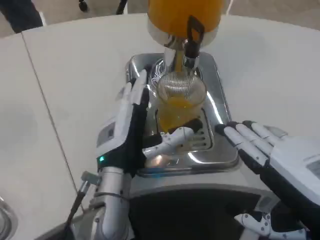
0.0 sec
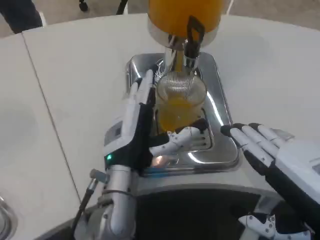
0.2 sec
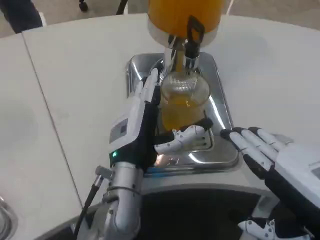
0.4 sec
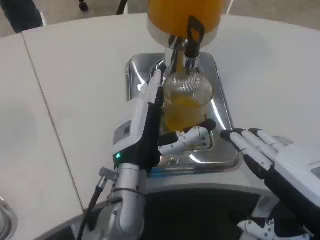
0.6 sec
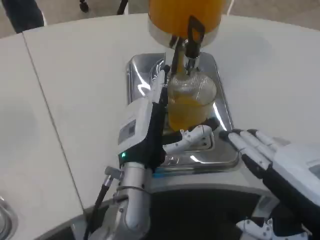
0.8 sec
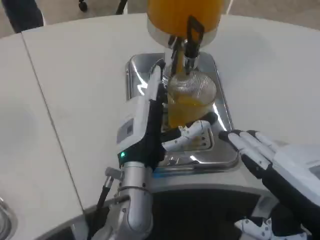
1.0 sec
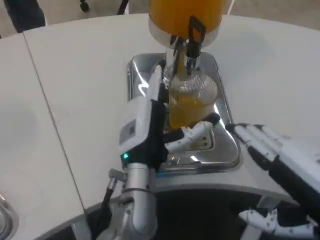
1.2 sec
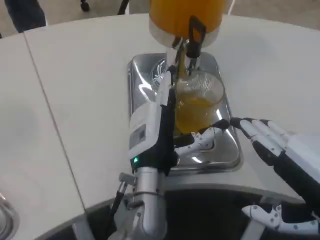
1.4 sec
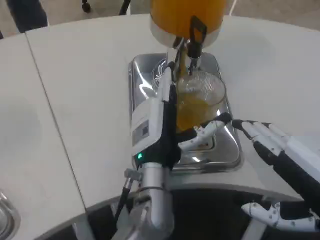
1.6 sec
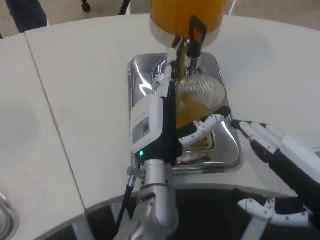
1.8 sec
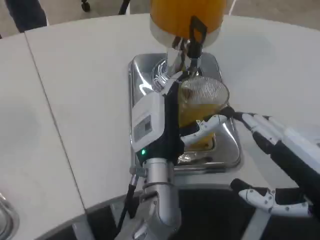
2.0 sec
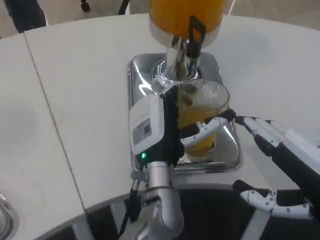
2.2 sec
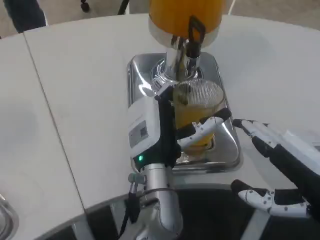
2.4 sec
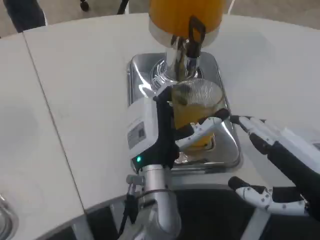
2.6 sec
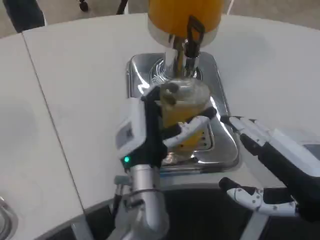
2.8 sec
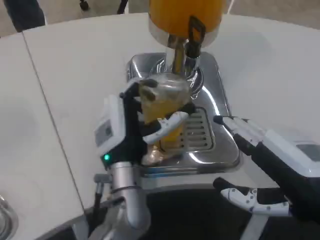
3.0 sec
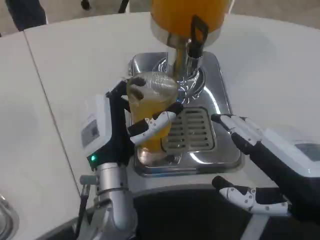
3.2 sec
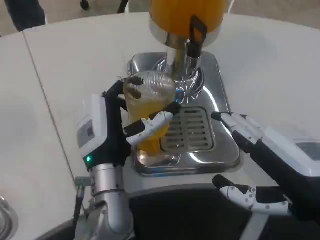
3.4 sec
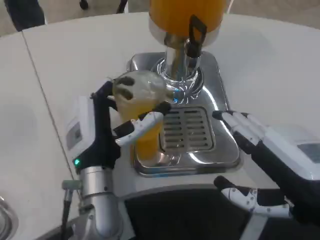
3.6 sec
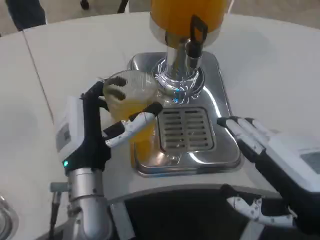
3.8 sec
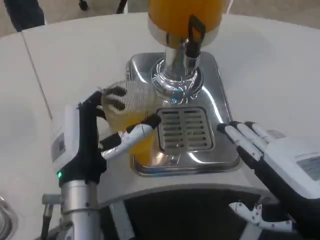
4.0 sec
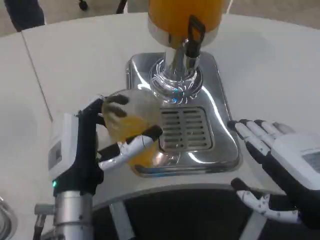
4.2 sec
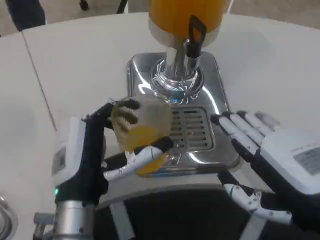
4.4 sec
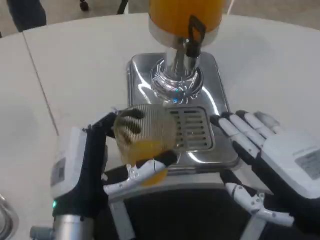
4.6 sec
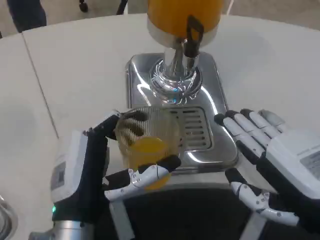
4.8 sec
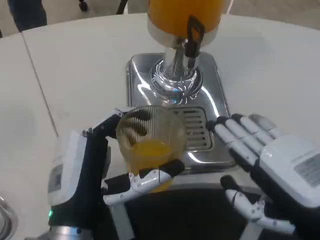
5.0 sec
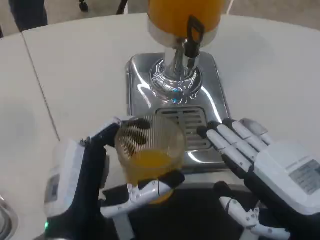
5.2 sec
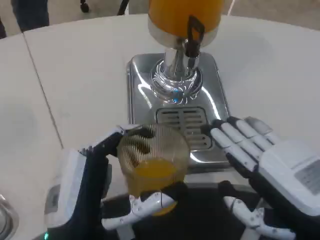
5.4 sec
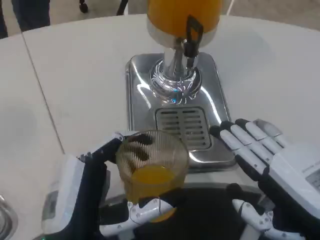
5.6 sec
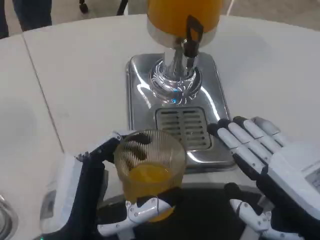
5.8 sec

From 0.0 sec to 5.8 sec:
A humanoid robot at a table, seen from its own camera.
Task of the whole recording: Grasp the cup under the faucet to collect the drink, then remove the cup.
From 0.0 sec to 1.4 sec: The left hand is displaced to the right by roughly 5 cm.
From 1.4 sec to 2.8 sec: The hands stay close to where they were, moving slightly.
From 2.8 sec to 4.4 sec: The left hand goes approximately 10 cm to the left and backward.
From 4.4 sec to 5.8 sec: The left hand heads backward, covering some 5 cm.

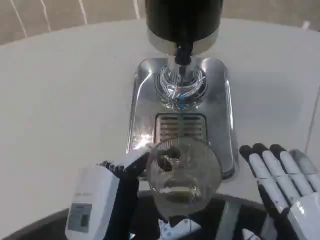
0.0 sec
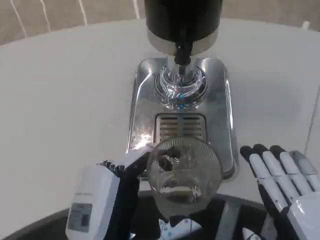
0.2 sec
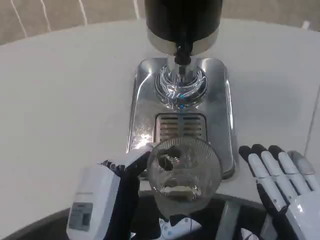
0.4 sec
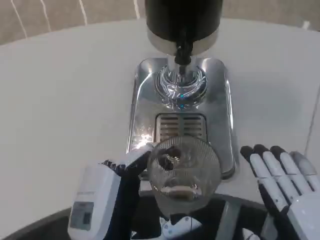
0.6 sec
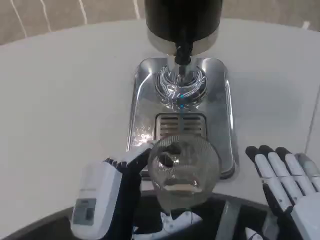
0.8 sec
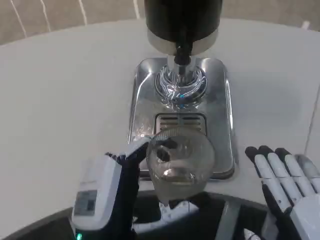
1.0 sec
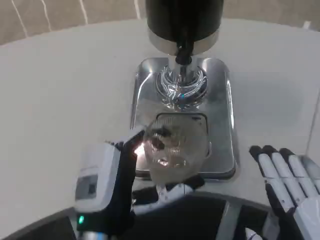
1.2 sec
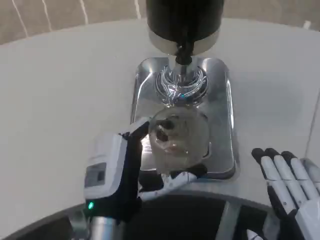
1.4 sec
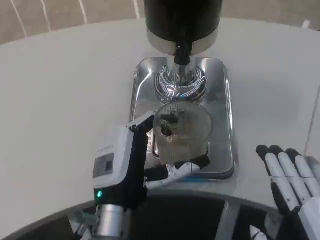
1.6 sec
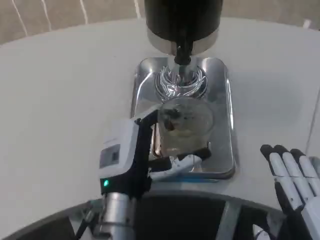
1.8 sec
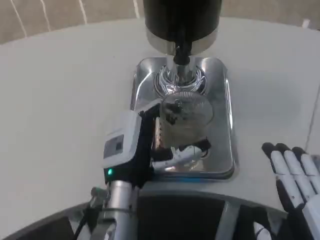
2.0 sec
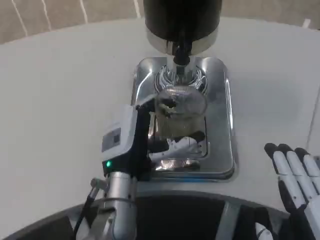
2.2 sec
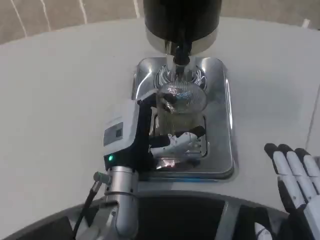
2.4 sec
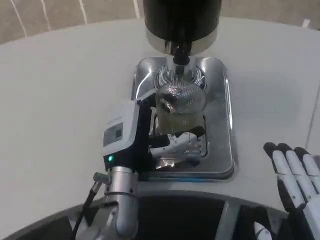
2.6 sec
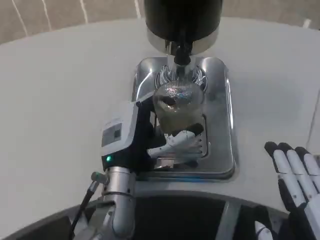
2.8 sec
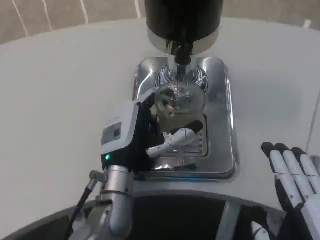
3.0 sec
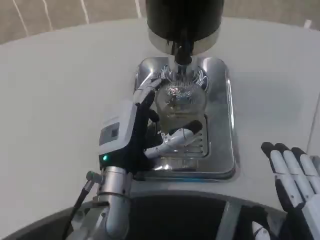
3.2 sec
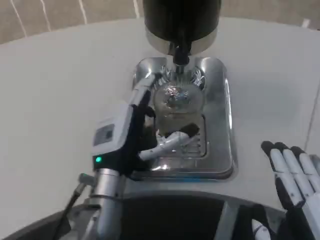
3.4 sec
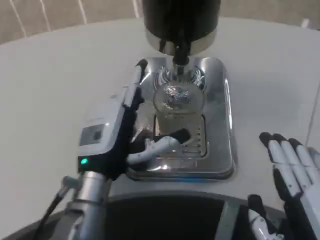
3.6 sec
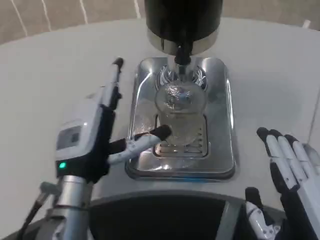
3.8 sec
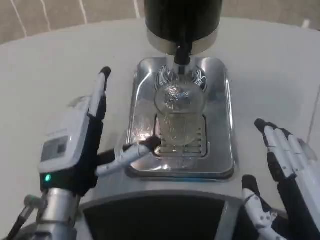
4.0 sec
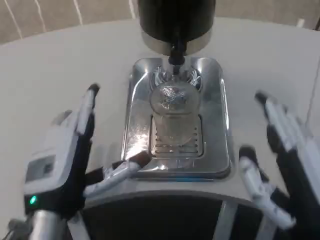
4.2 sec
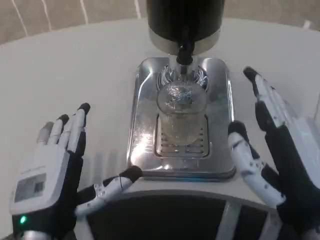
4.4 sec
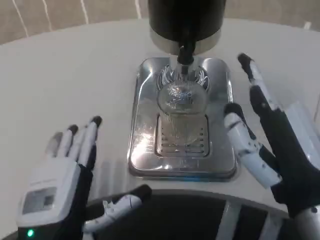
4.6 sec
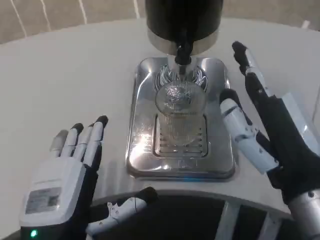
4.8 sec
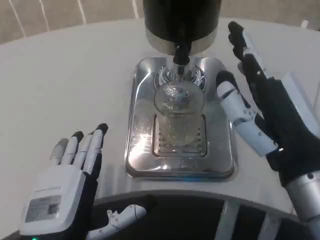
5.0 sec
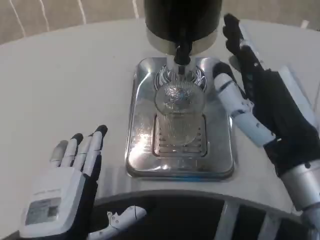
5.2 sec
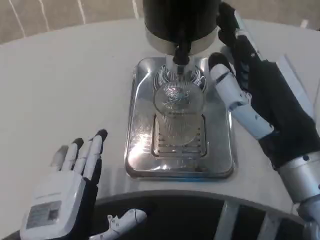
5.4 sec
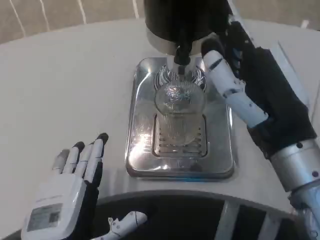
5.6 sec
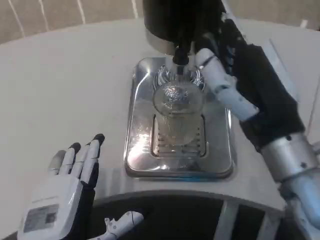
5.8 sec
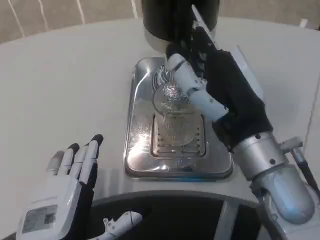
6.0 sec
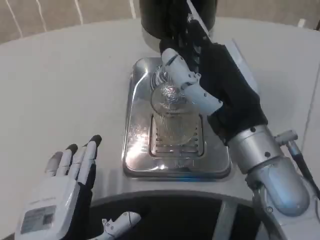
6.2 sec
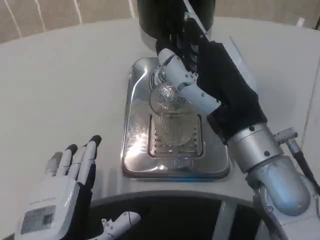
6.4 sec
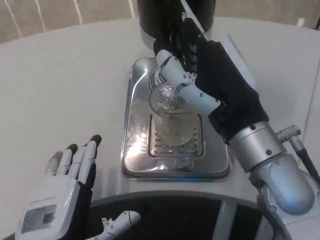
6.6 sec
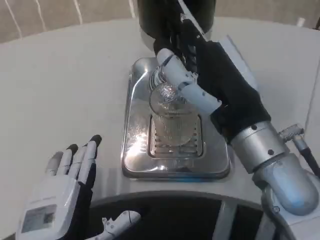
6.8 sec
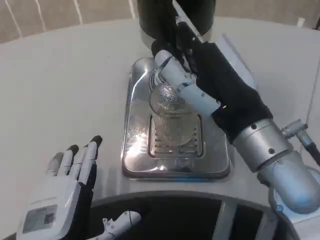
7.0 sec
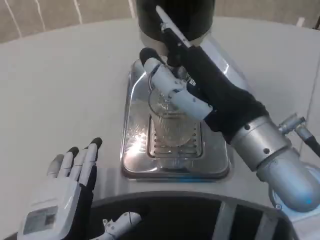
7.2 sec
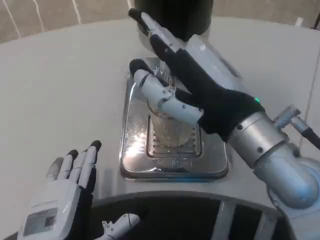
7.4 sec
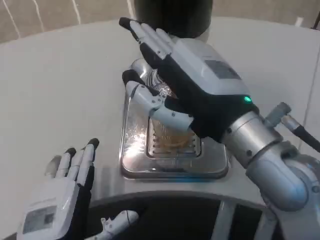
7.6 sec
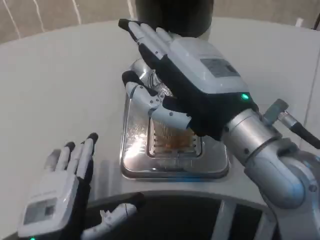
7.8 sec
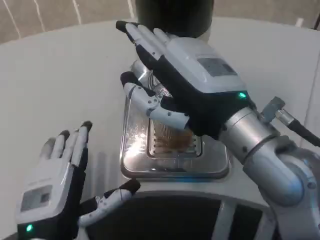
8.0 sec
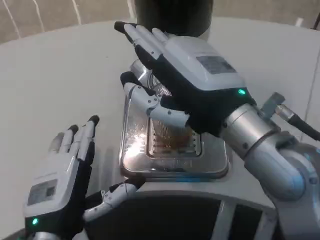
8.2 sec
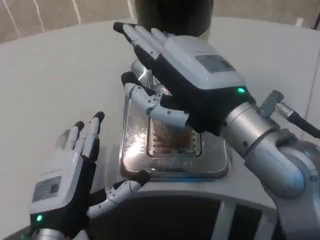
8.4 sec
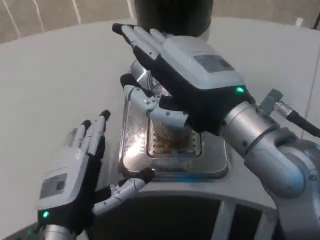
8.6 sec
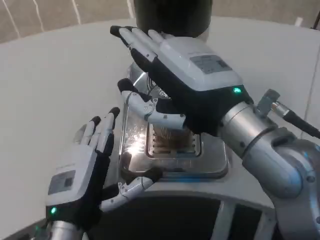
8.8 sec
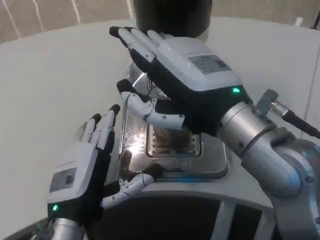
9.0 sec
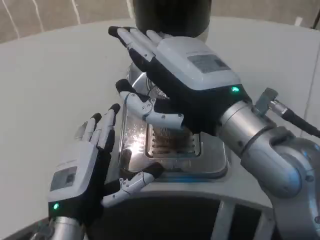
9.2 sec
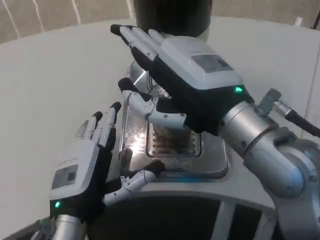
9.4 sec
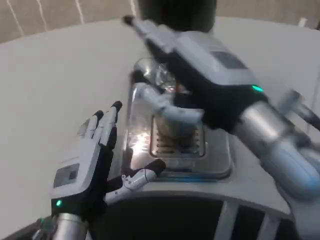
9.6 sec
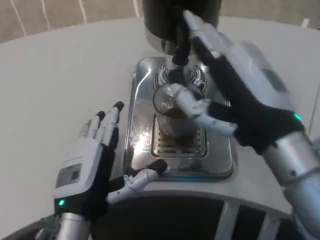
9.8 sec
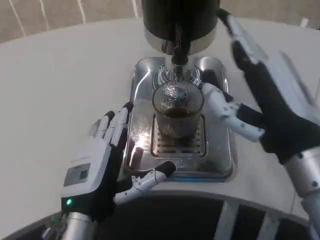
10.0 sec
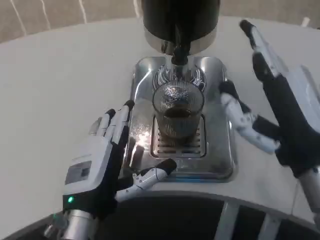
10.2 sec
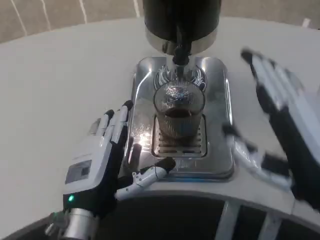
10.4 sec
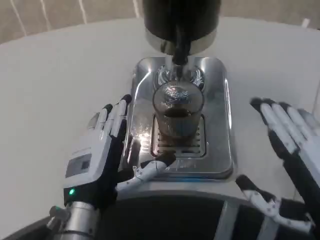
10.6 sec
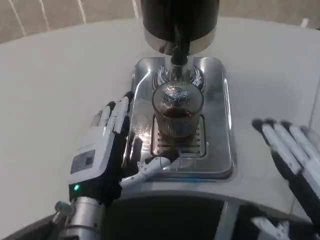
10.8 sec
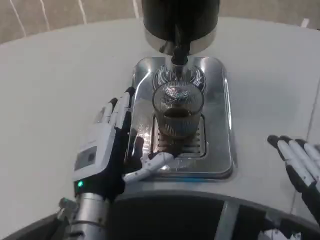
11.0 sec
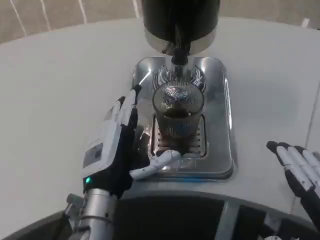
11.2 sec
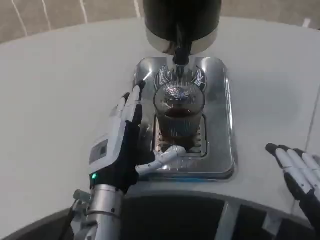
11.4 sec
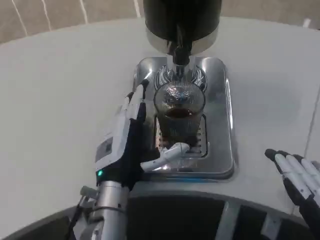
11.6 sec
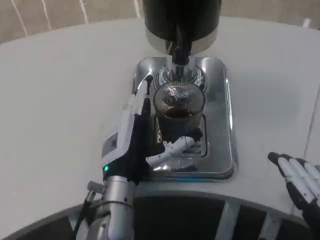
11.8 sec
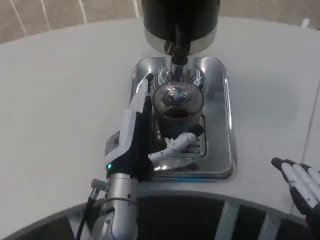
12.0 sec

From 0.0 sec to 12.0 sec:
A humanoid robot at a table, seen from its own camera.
Task of the whole recording: Grasp the cup under the faucet to collect the drink, then remove the cup.
From 0.0 sec to 1.6 sec: The left hand heads forward, covering approximately 10 cm.
From 1.6 sec to 3.0 sec: The left hand moves forward, some 5 cm.
From 3.0 sec to 4.4 sec: The left hand heads backward and to the left, covering approximately 15 cm; the right hand moves forward and upward, approximately 10 cm.
From 4.4 sec to 6.0 sec: The right hand goes some 10 cm forward.
From 7.6 sec to 9.0 sec: The left hand goes some 5 cm forward.
From 9.0 sec to 10.4 sec: The right hand goes approximately 15 cm to the right, downward and backward.
From 10.4 sec to 12.0 sec: The left hand heads forward and to the right, covering about 10 cm; the right hand moves backward, roughly 10 cm.

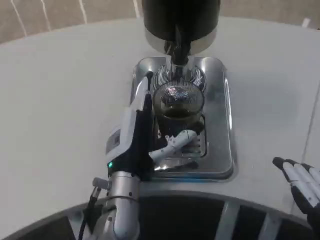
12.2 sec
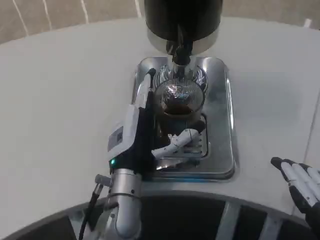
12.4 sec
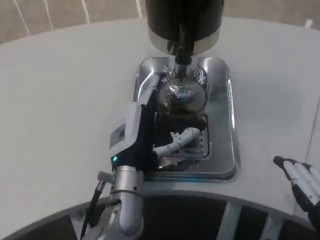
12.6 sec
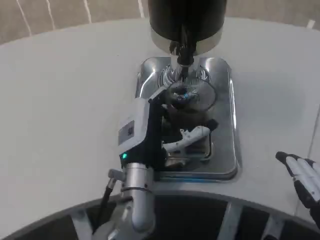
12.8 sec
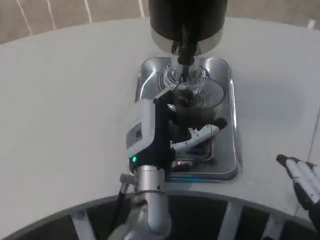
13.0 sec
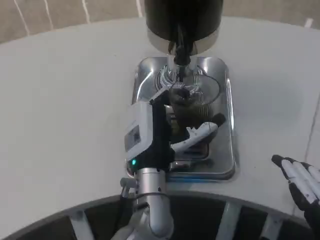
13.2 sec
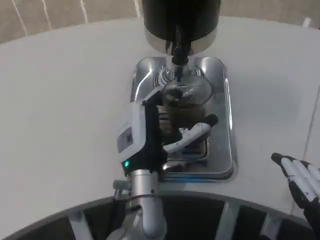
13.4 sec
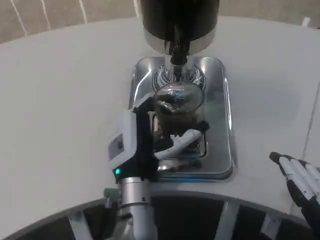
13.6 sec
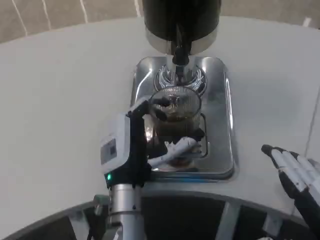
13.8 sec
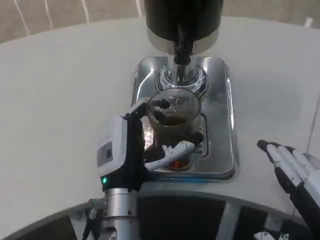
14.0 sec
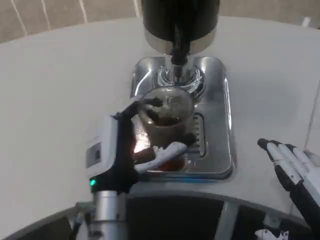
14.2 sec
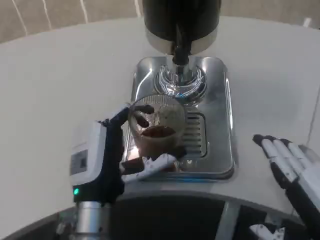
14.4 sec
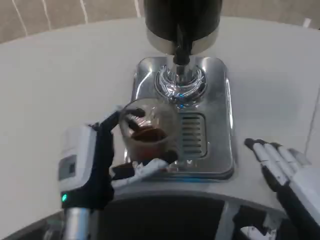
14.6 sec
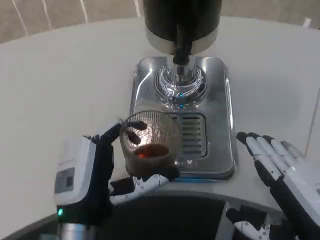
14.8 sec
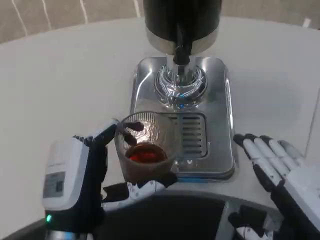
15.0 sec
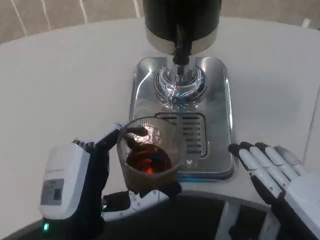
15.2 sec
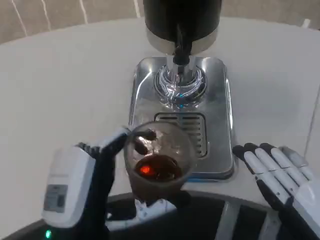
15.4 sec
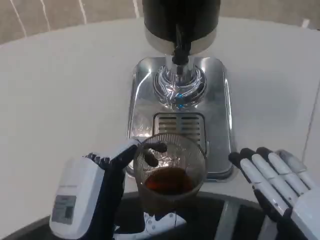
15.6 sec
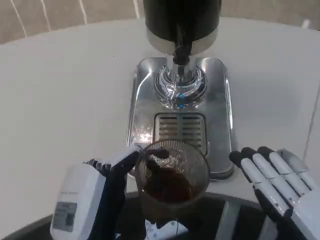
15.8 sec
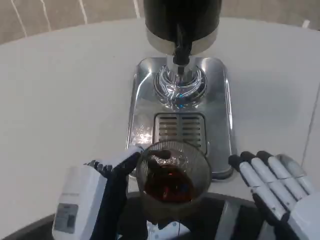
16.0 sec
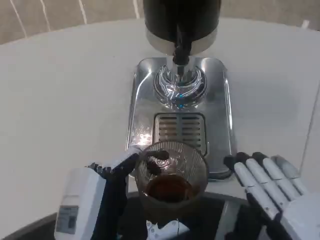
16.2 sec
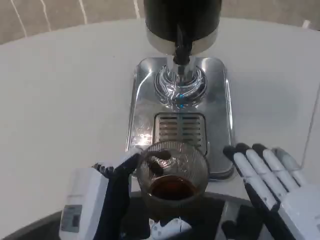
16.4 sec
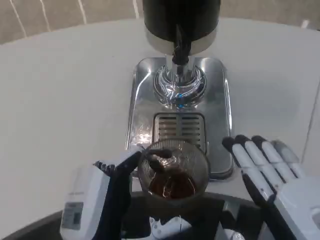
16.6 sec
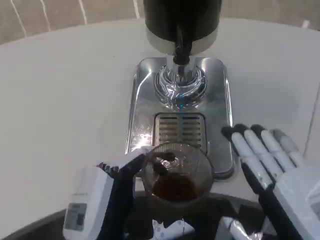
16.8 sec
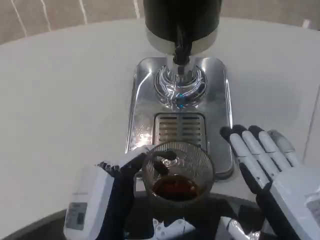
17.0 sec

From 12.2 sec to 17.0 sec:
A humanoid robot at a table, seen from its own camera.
Task of the whole recording: Grasp the cup under the faucet to collect the drink, then remove the cup.
From 12.2 sec to 13.8 sec: The hands move only a little.
From 13.8 sec to 15.4 sec: The left hand shifts approximately 15 cm backward and to the left.
From 15.4 sec to 17.0 sec: The hands move only a little.
